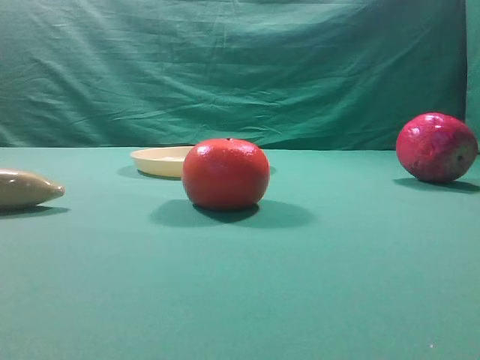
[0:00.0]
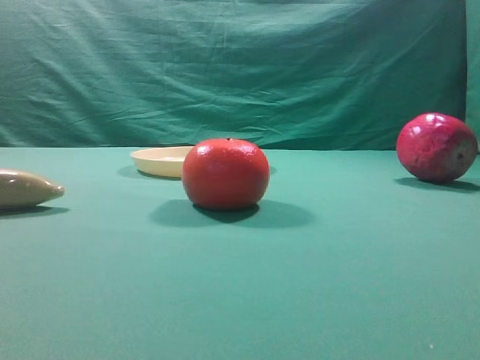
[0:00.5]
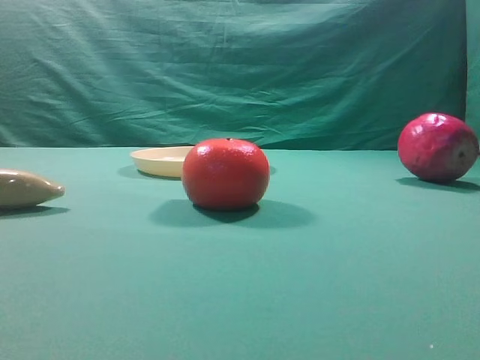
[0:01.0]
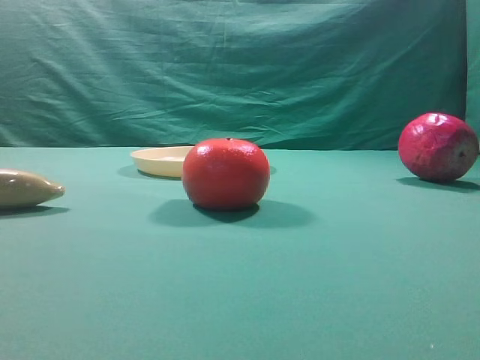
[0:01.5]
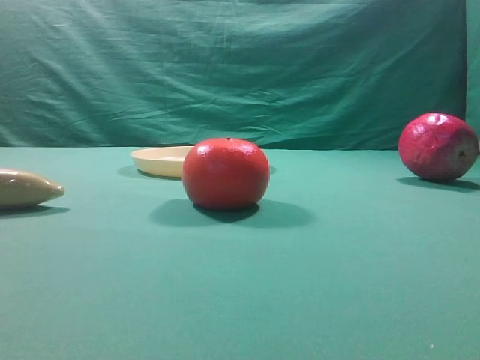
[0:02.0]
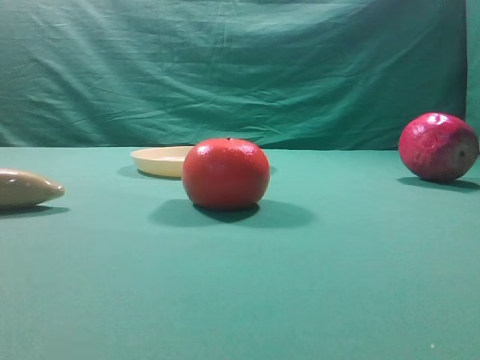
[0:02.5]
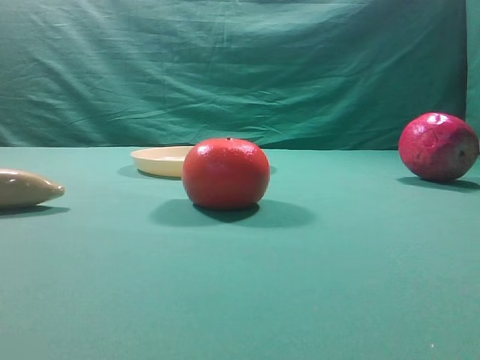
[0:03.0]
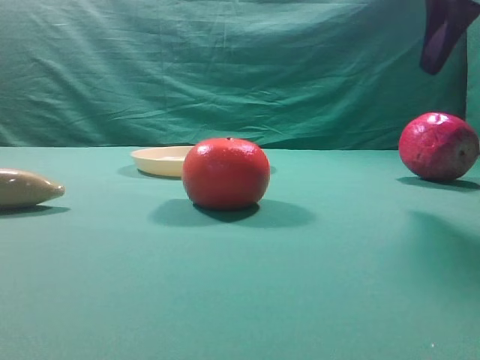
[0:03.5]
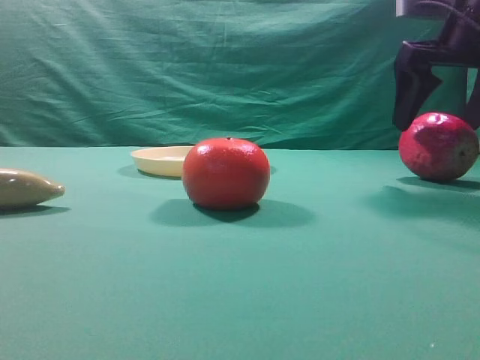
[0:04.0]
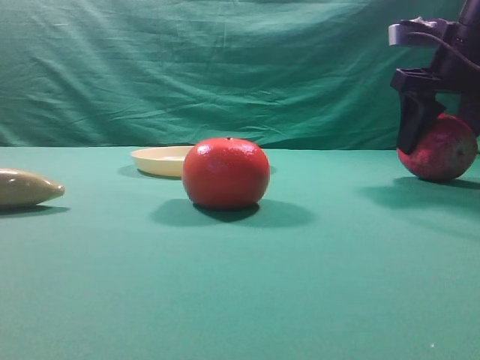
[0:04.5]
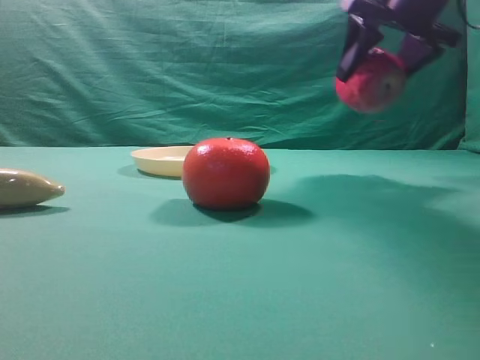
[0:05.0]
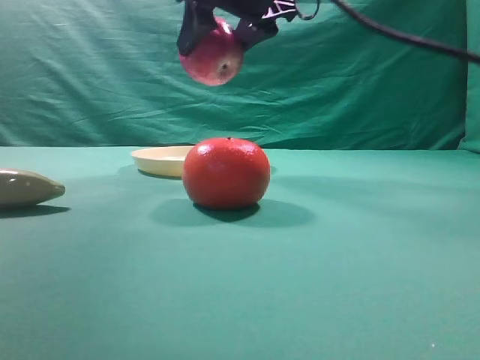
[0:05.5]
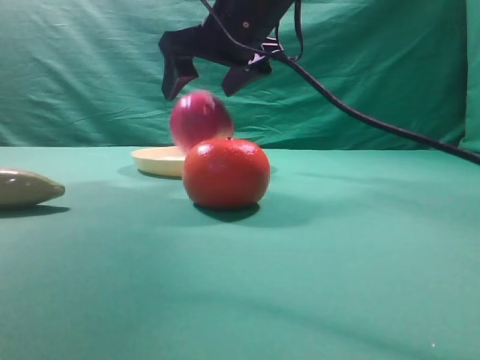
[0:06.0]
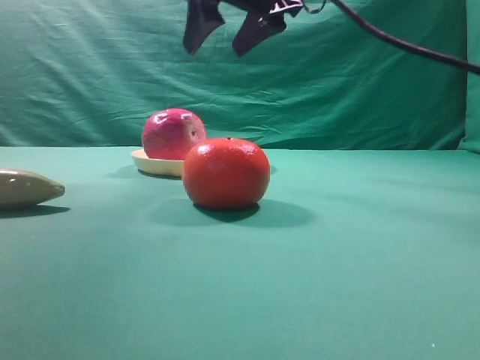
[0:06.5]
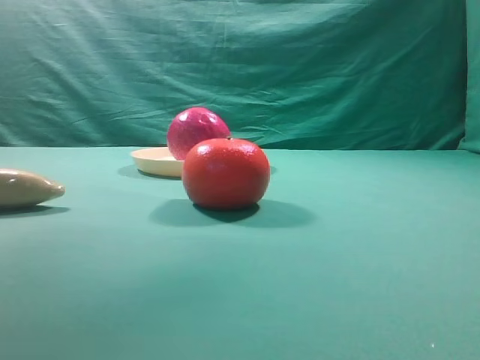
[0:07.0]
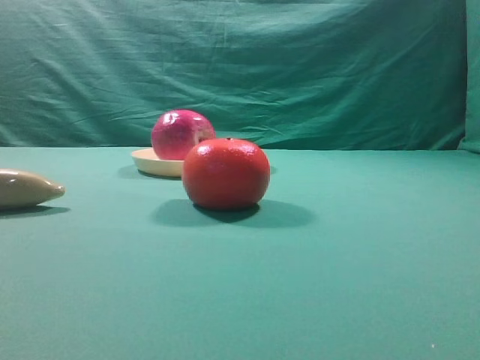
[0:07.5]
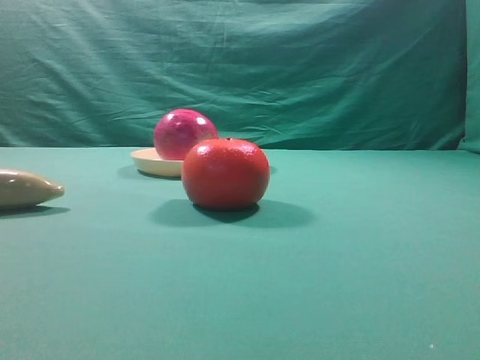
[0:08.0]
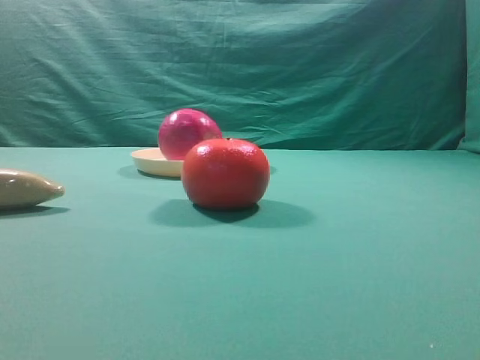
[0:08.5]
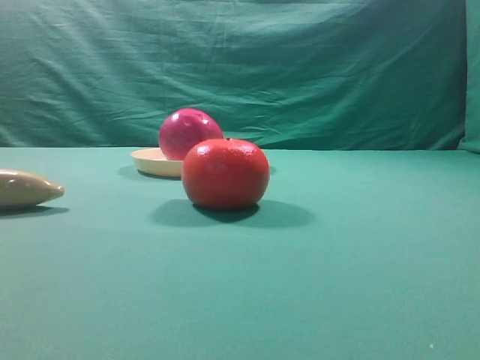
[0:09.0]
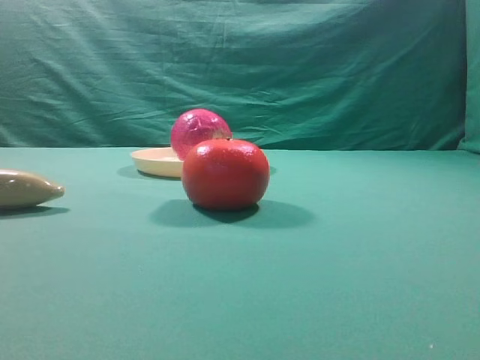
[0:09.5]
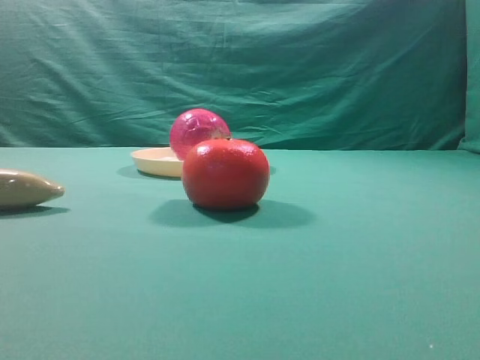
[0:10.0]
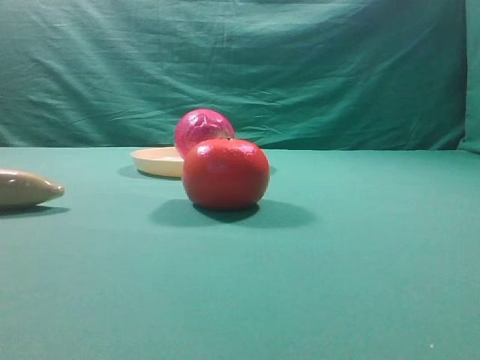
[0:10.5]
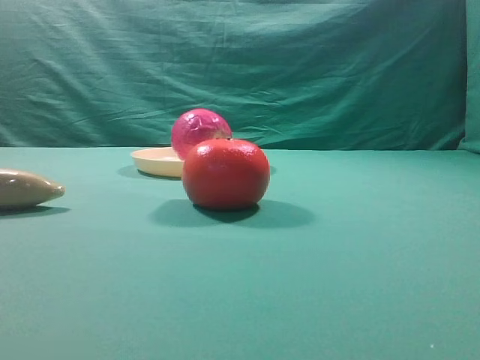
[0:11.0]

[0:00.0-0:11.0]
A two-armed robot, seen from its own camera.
Task of the whole recording: grasp the apple and place it into the yellow plate.
Step, 0:00.0 to 0:04.5: Grasp the fruit that can keep the doctor away.
Step, 0:05.0 to 0:06.5: Place the picked object into the yellow plate.

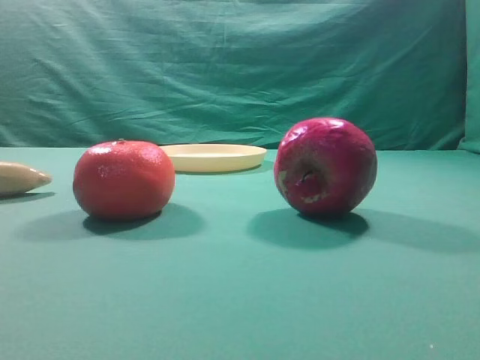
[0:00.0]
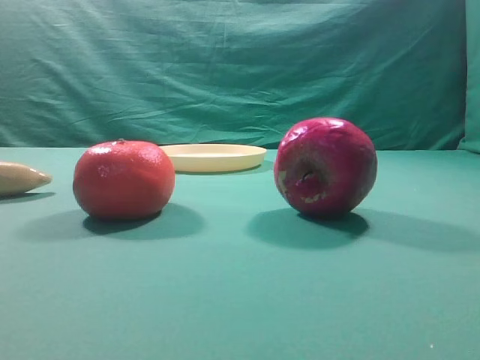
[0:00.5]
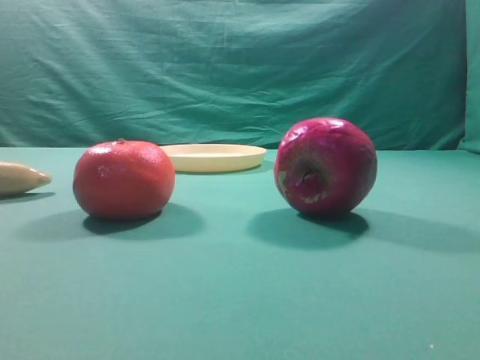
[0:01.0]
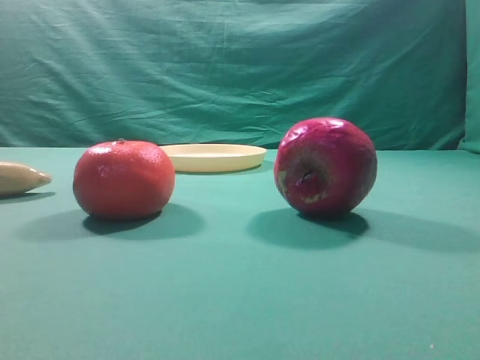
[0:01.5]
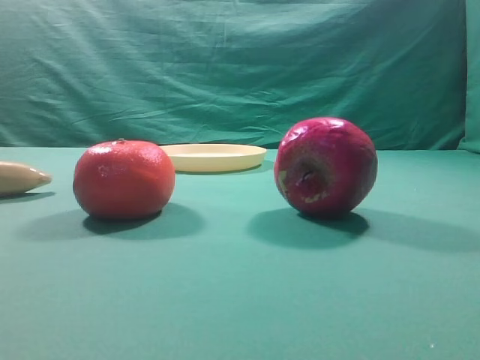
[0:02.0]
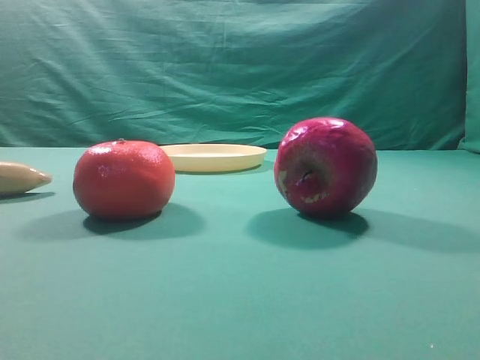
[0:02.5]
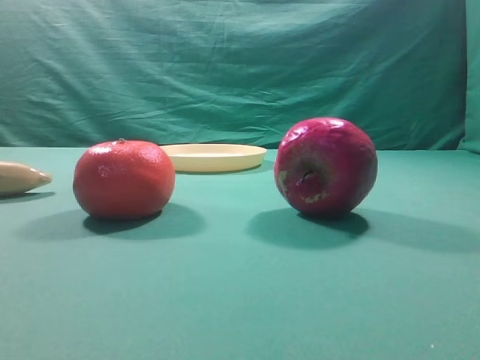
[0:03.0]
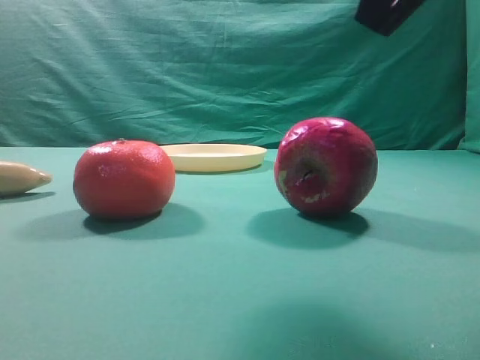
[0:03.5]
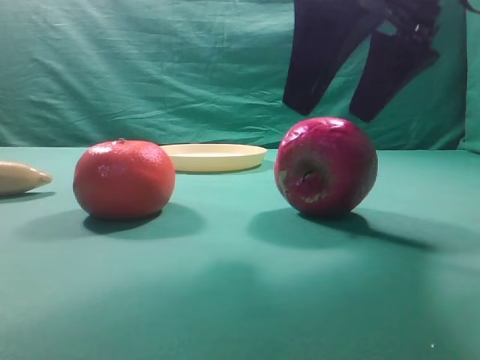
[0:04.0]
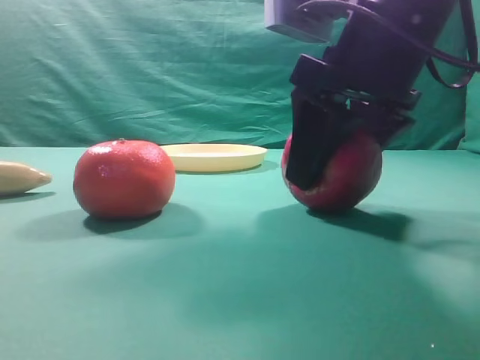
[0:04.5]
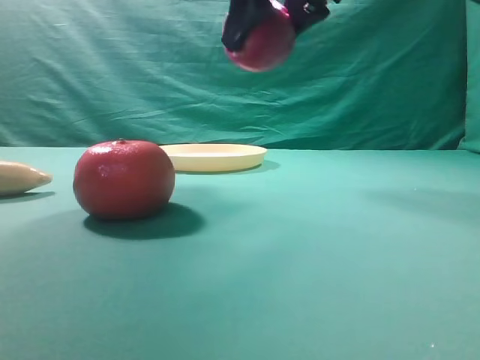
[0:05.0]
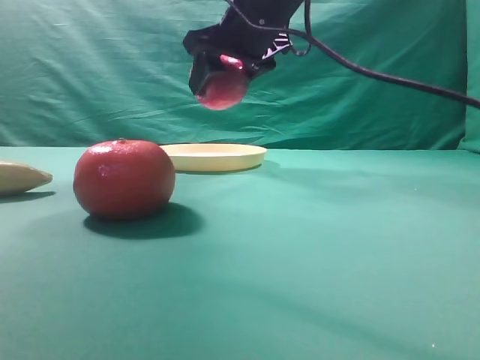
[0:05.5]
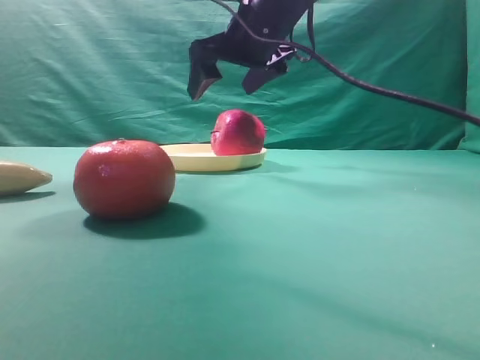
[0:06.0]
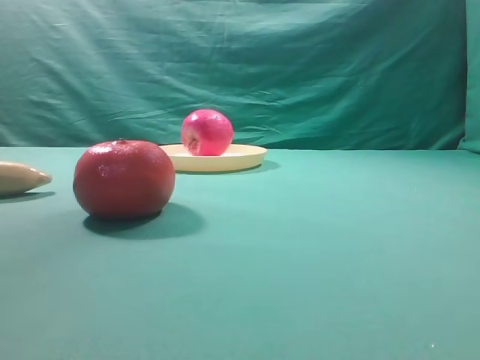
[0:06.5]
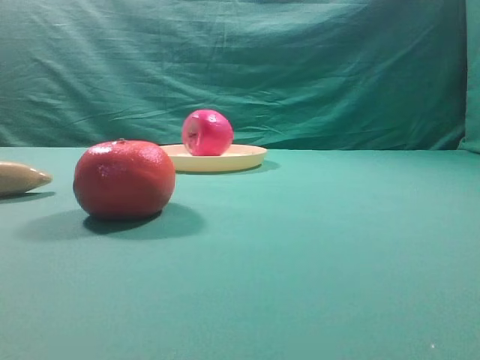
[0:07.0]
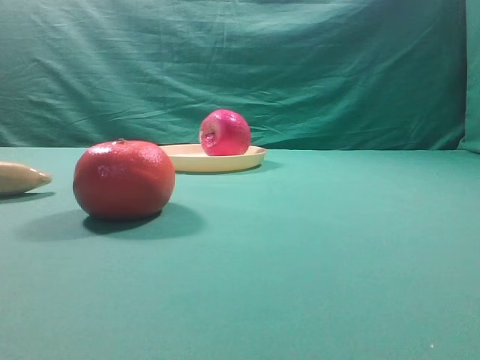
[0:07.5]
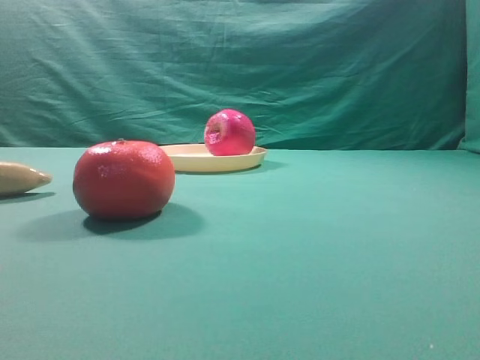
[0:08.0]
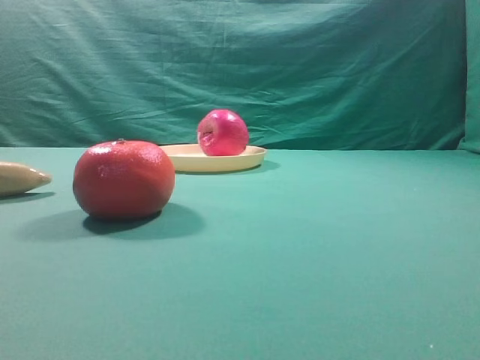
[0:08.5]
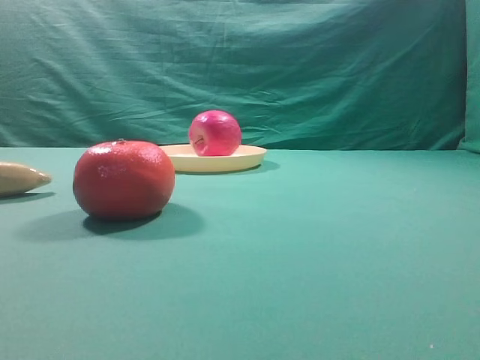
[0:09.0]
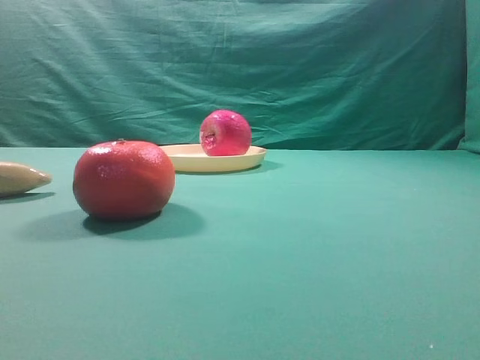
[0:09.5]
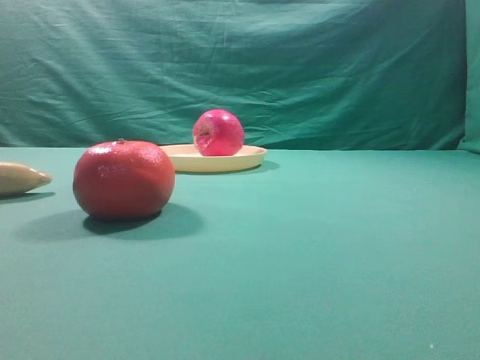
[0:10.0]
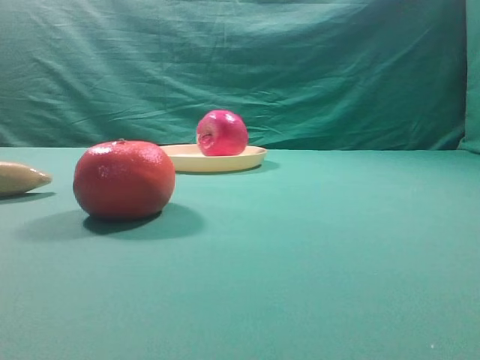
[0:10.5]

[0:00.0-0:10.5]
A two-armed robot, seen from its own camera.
Task of the whole recording: grasp the apple and place it into the yellow plate.
Step, 0:00.0 to 0:04.5: Grasp the fruit that can keep the doctor away.
Step, 0:05.0 to 0:05.5: Place the picked object into the yellow plate.
